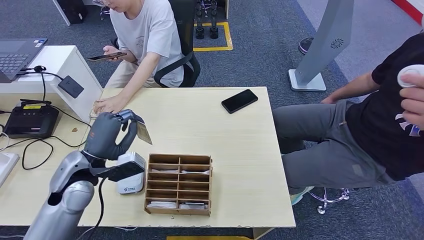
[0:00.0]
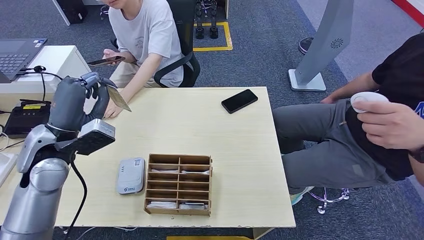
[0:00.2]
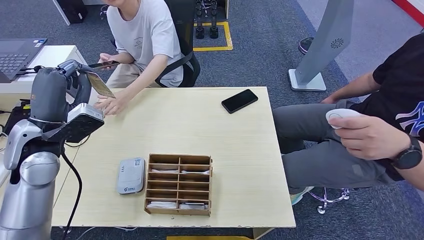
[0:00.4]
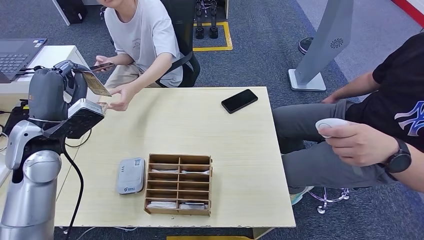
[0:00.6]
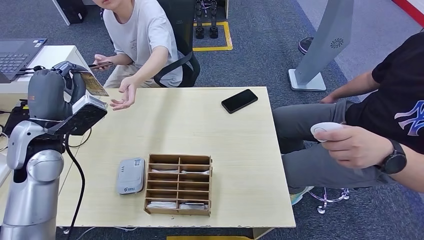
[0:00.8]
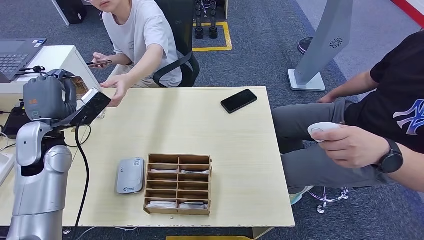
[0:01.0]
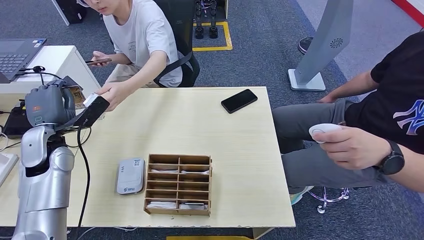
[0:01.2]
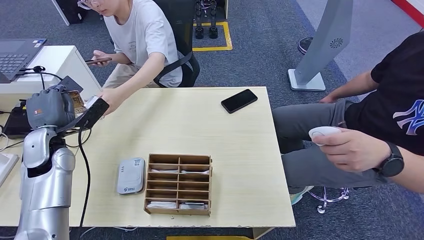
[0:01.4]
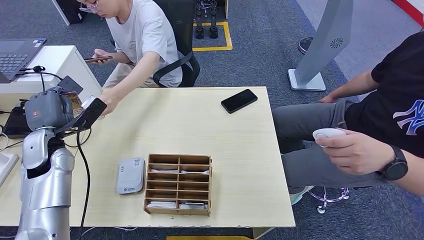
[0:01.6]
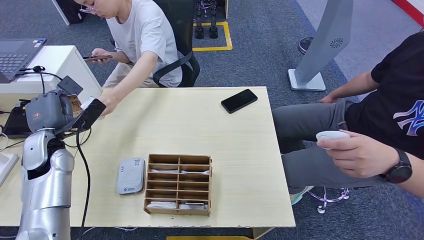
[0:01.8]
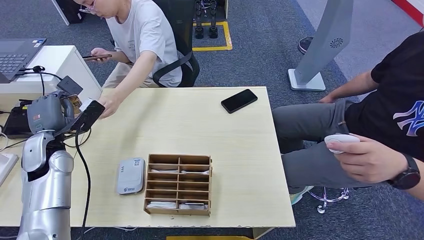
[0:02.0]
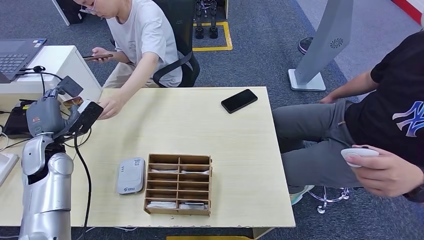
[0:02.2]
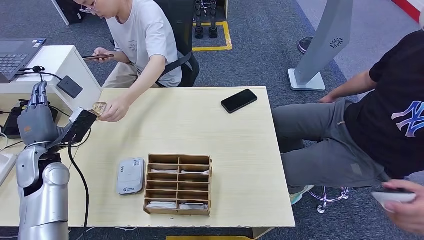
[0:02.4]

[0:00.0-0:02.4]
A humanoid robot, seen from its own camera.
Step, 0:00.4 to 0:02.4: Hand the room key to the person.
0:01.2 to 0:02.4: The hands move only a little.

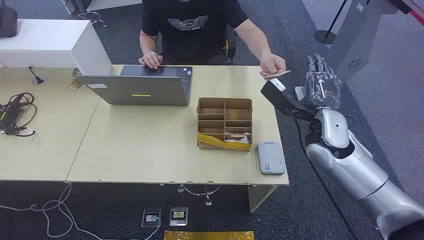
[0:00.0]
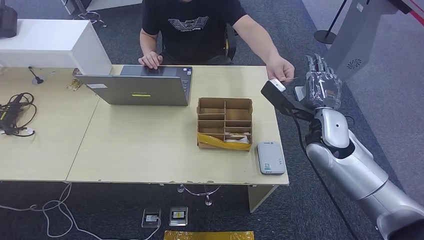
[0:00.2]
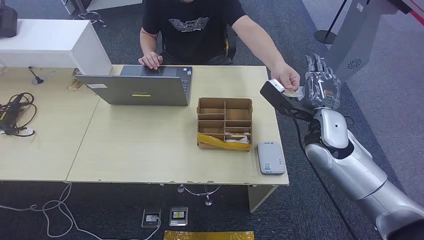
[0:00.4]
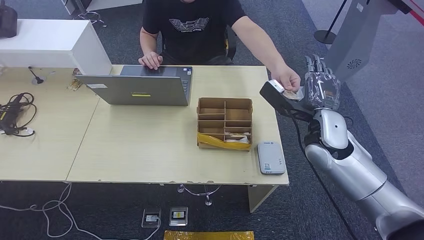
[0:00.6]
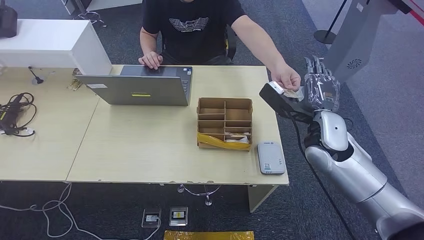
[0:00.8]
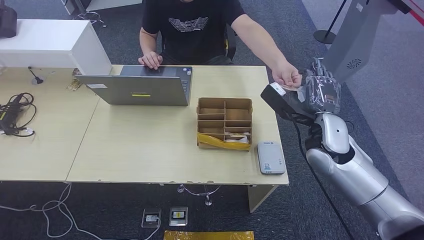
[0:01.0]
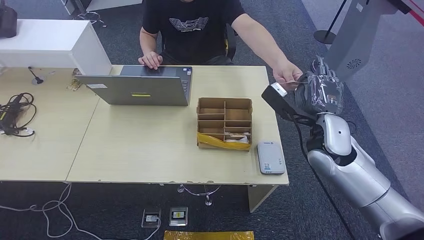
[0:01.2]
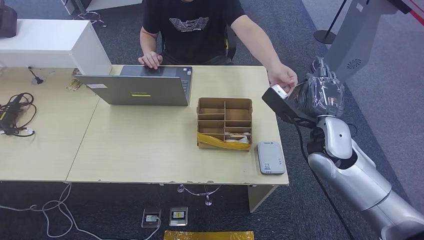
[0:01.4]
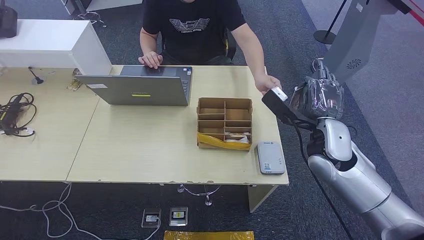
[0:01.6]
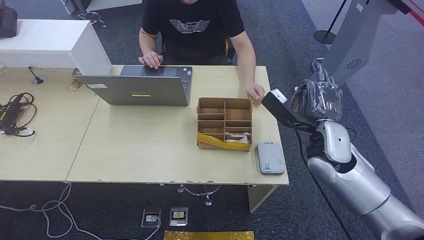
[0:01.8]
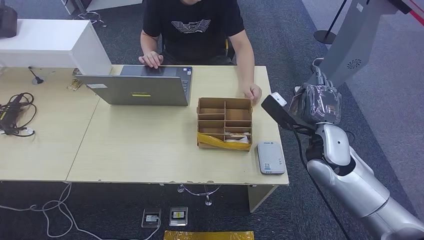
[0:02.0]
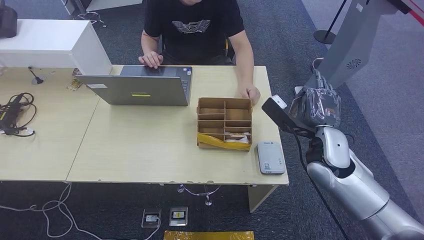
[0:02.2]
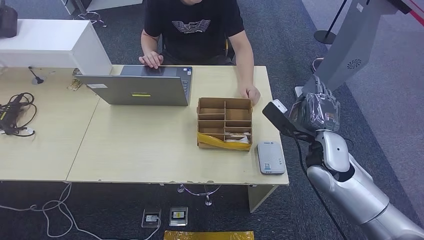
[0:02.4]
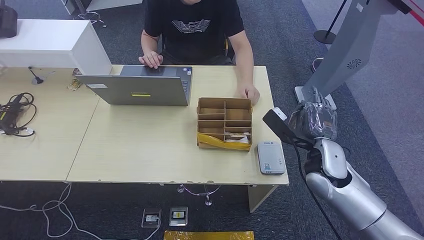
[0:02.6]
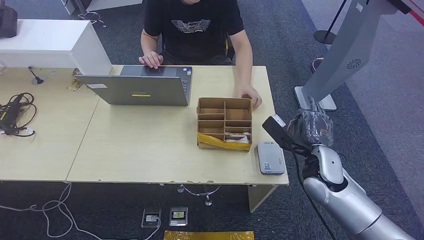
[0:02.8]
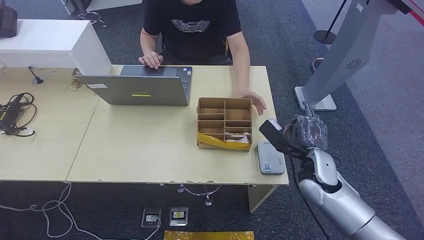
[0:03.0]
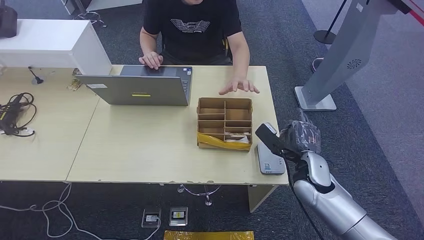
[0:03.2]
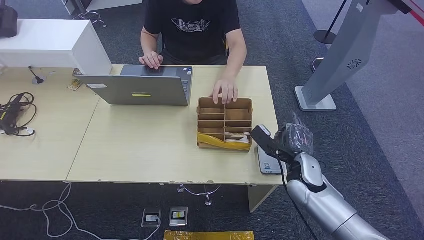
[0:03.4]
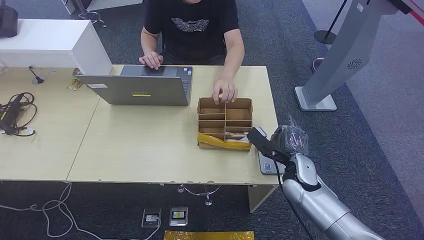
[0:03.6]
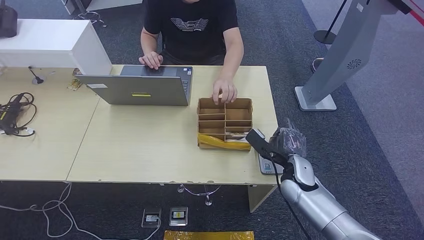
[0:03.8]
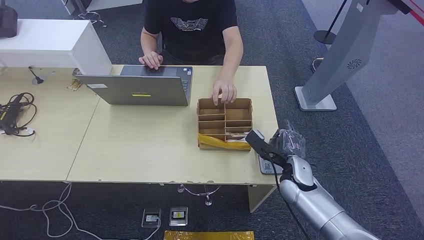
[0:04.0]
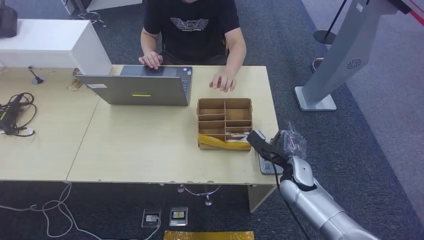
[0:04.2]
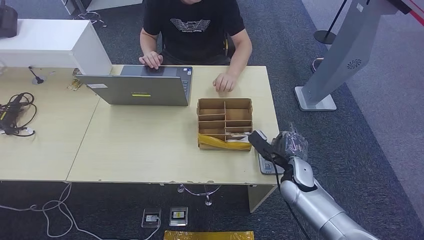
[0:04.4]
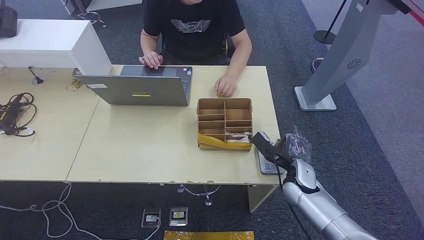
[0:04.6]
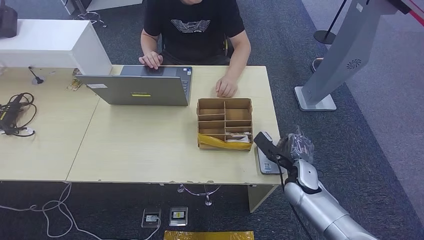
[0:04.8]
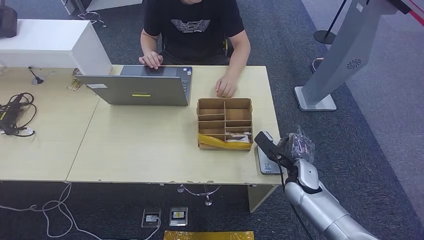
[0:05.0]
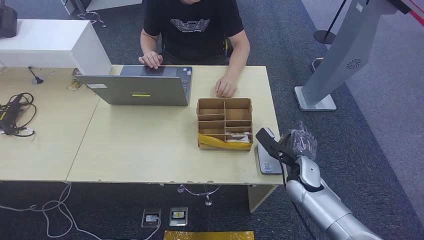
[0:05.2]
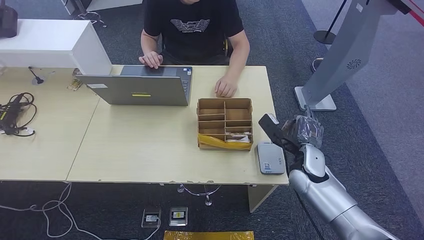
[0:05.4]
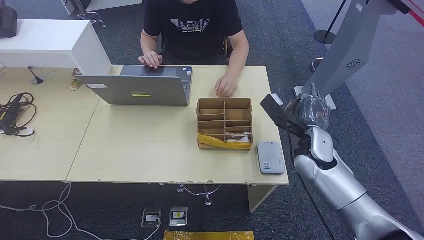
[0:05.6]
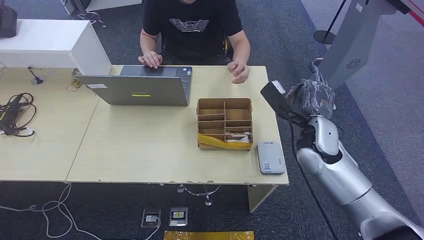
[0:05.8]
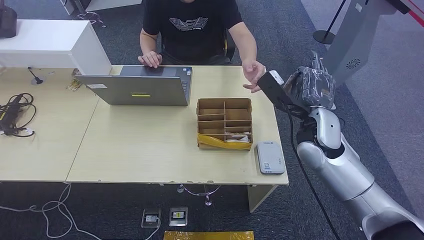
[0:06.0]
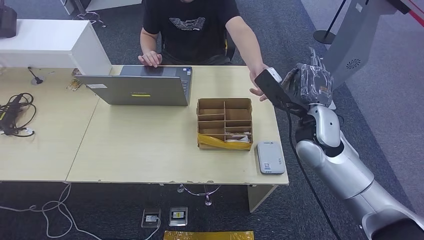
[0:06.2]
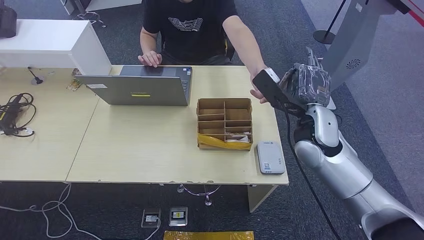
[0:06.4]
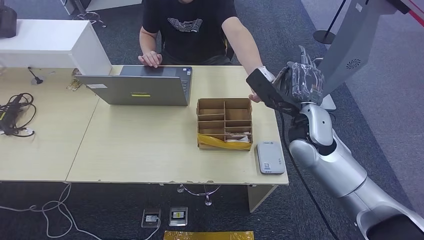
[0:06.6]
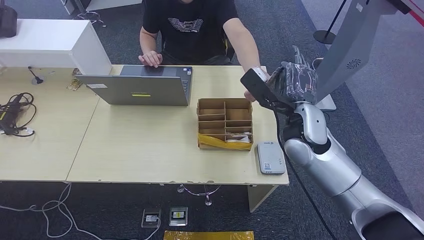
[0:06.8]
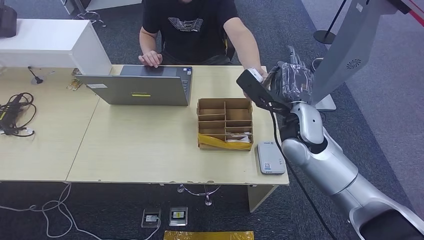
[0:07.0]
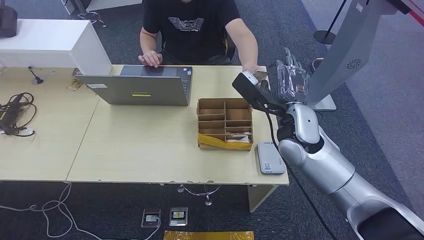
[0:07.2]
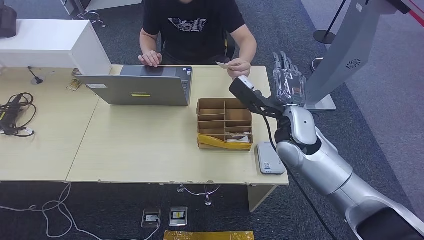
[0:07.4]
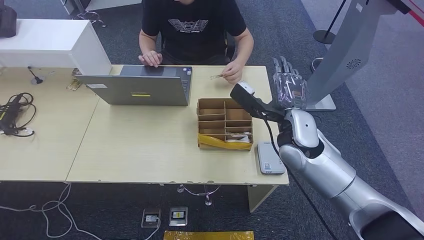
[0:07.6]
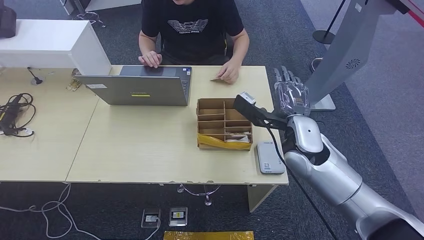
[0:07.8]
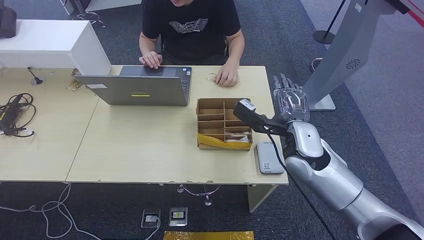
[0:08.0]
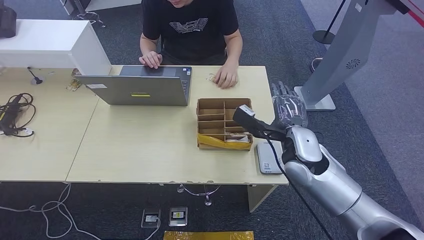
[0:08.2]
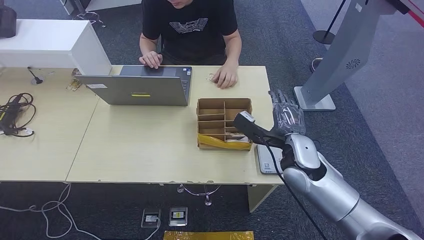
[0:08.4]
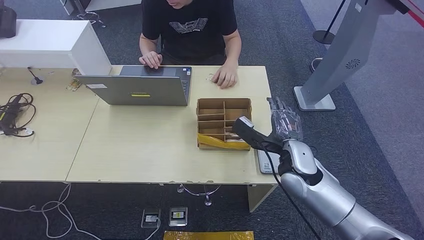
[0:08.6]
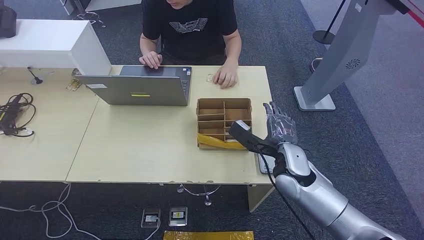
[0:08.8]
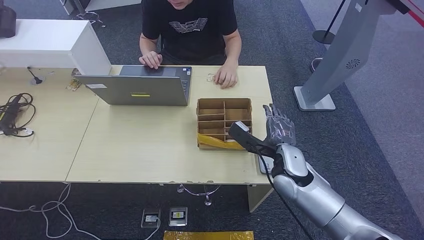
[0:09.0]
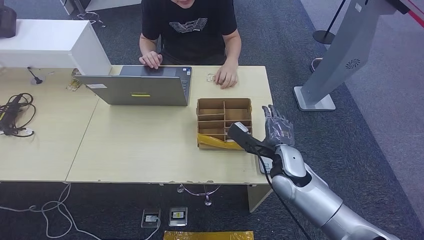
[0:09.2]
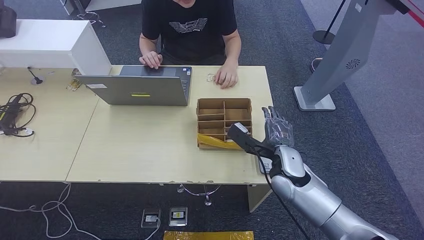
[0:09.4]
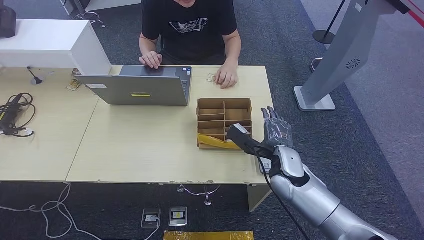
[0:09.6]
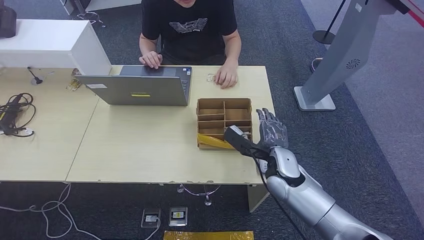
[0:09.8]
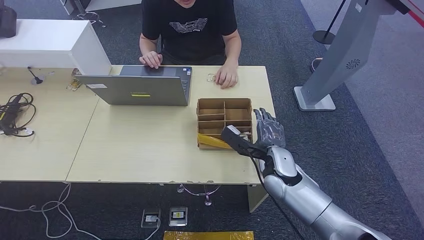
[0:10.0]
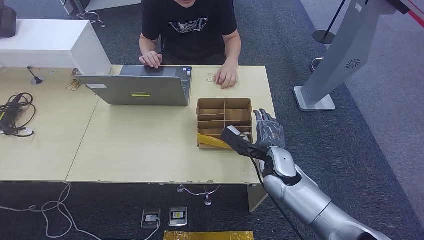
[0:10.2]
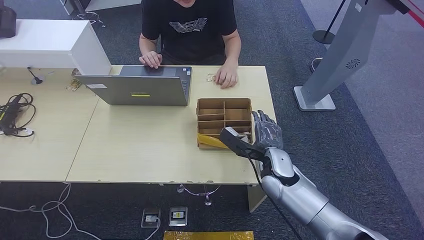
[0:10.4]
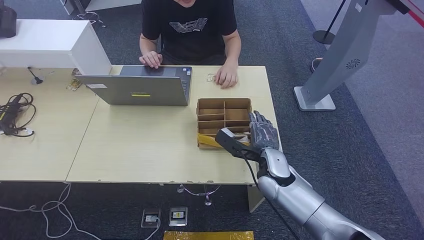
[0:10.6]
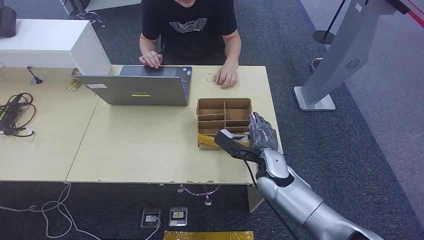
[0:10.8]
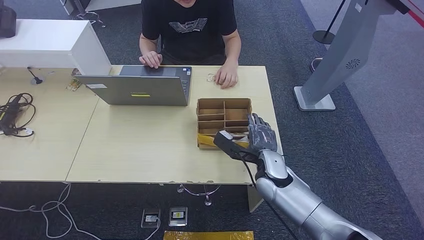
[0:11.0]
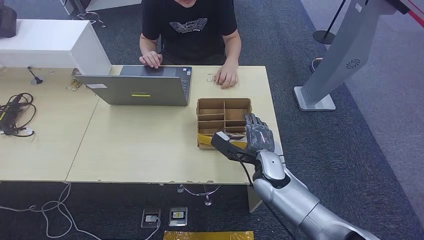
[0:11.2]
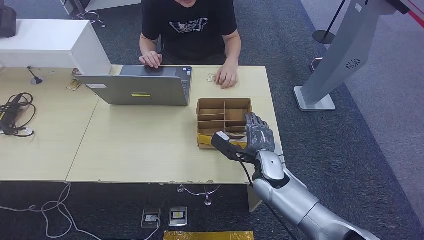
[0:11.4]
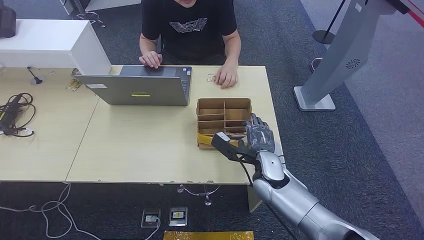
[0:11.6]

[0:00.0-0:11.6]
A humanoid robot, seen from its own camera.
Step, 0:00.0 to 0:01.0: Take the ID card from the person's hand.
Step, 0:01.4 to 0:04.4: Place the ID card on the card reader.
Step, 0:04.6 to 0:06.8: Hand the ID card to the person.
0:01.4 to 0:02.8: The right hand is displaced downward by about 5 cm.
0:02.8 to 0:04.4: The right hand is displaced downward by roughly 10 cm.
0:04.4 to 0:05.8: The right hand travels upward and forward by about 15 cm.
0:05.8 to 0:07.2: The right hand travels to the left by roughly 5 cm.
0:07.2 to 0:08.8: The right hand travels downward and backward by about 10 cm.
0:08.8 to 0:10.2: The hands move only a little.
0:10.2 to 0:11.6: The hands make only small movements.

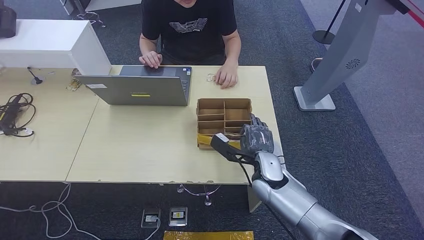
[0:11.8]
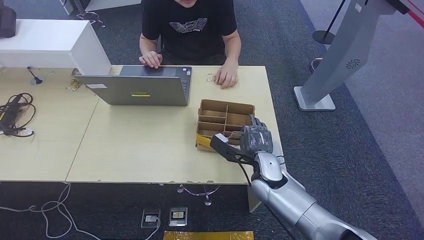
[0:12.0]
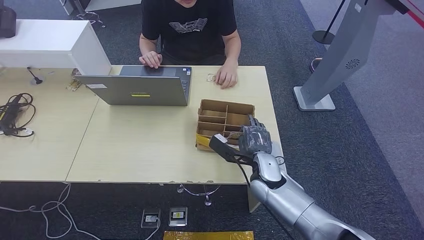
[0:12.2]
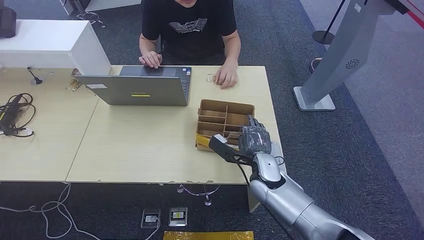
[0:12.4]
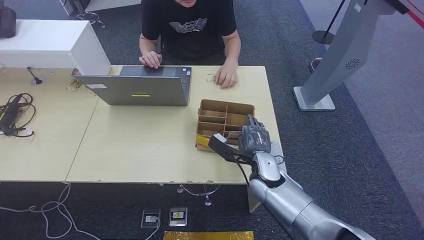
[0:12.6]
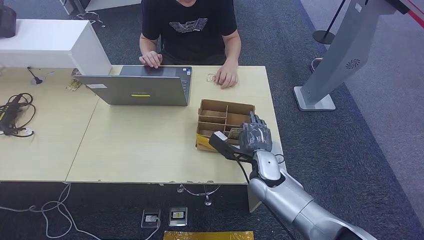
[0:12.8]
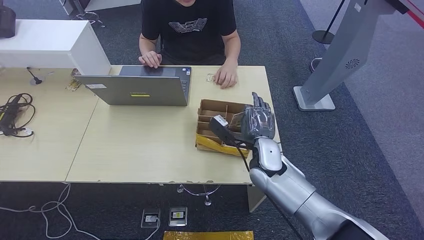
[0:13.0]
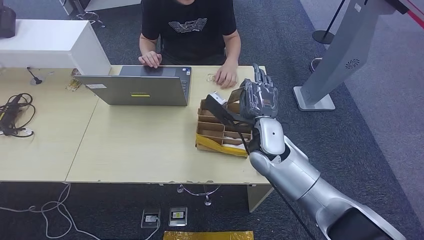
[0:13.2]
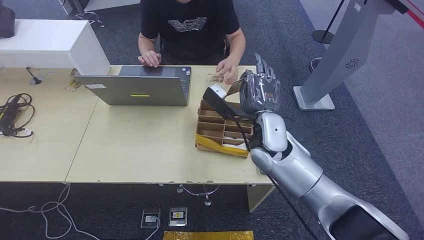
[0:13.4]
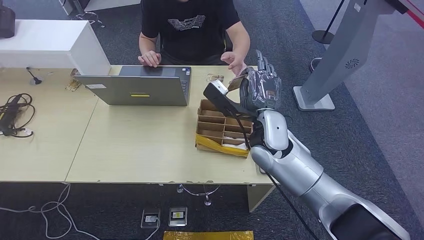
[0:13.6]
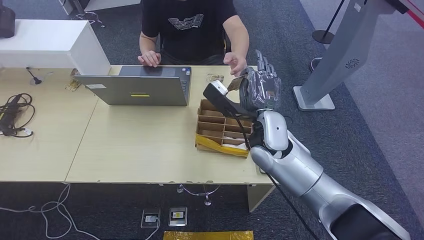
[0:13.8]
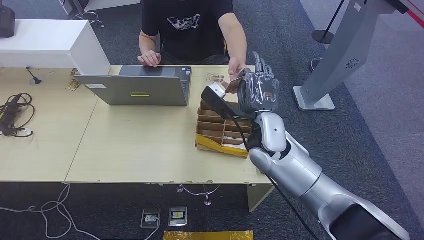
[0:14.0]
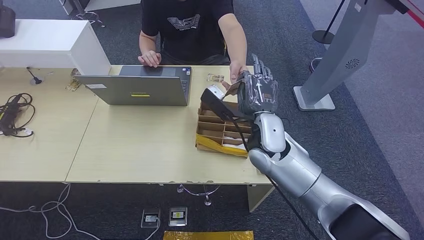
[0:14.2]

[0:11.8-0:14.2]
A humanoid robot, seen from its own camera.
Step, 0:13.6 to 0:14.2: Hand the room key to the person.
0:11.8 to 0:13.0: The hands make only small movements.
0:13.0 to 0:14.2: The right hand is displaced upward by approximately 10 cm.
